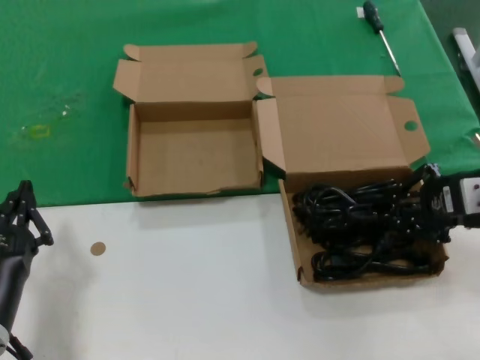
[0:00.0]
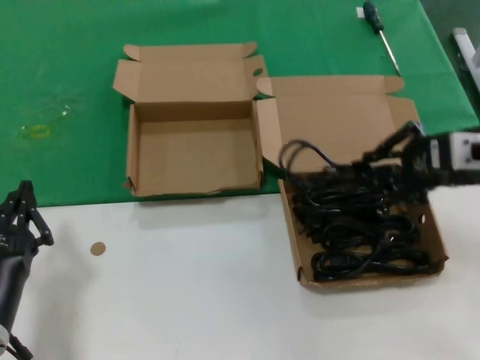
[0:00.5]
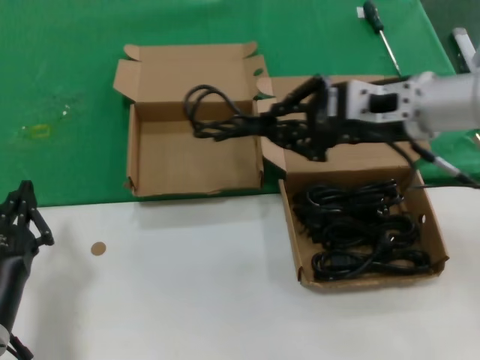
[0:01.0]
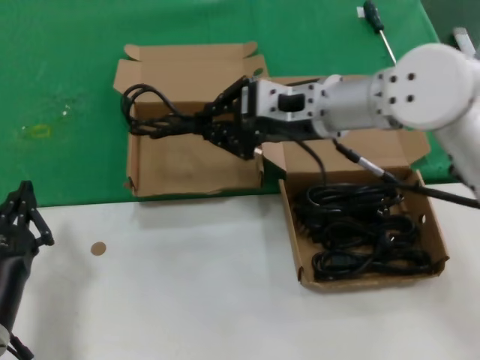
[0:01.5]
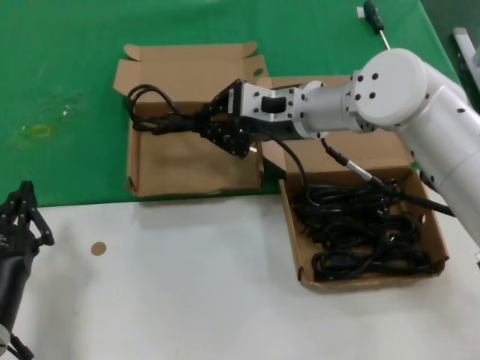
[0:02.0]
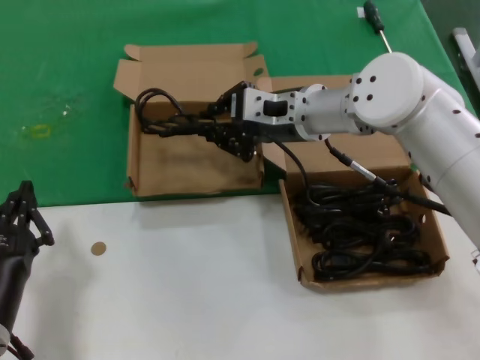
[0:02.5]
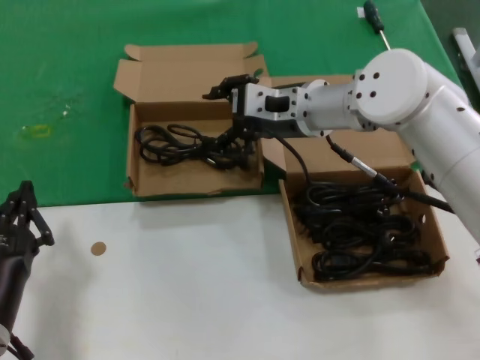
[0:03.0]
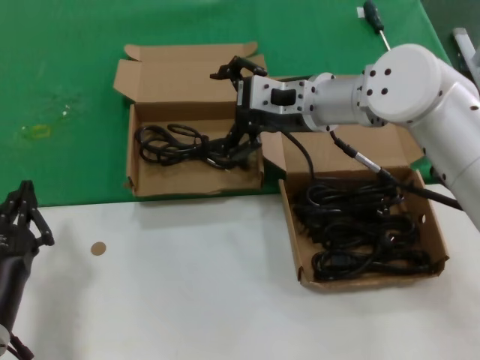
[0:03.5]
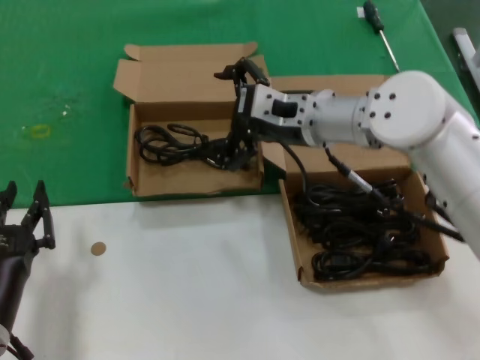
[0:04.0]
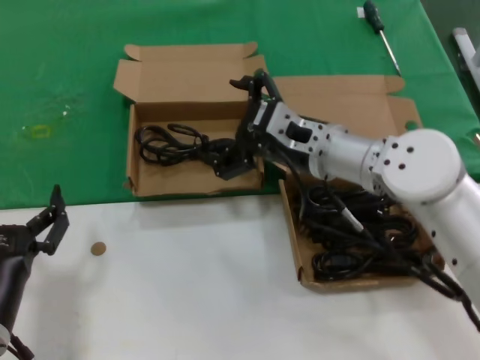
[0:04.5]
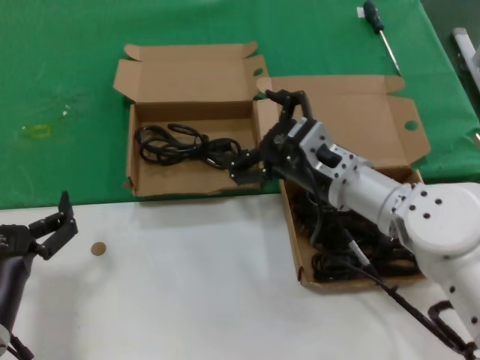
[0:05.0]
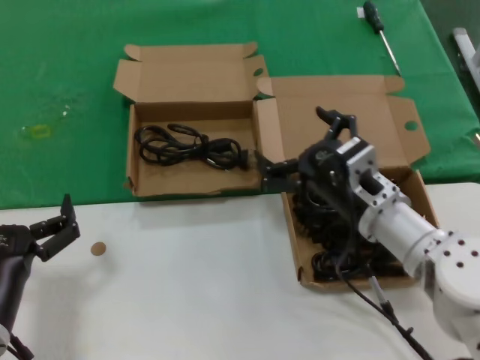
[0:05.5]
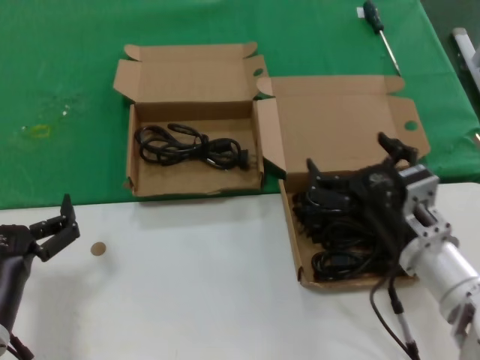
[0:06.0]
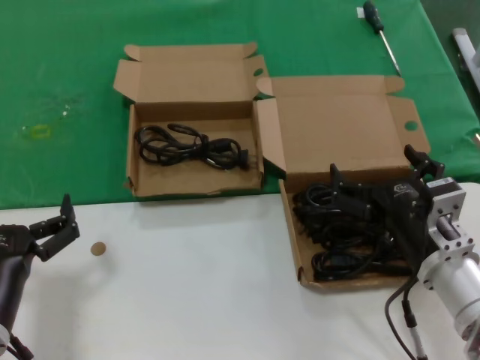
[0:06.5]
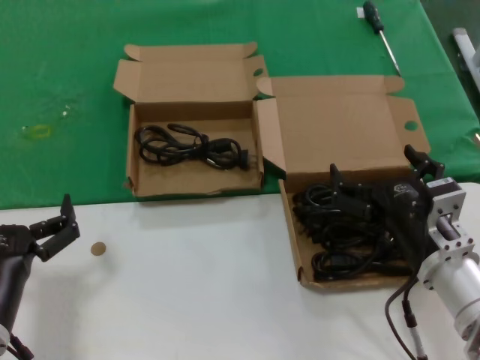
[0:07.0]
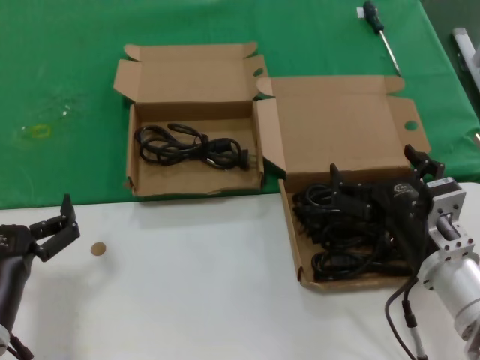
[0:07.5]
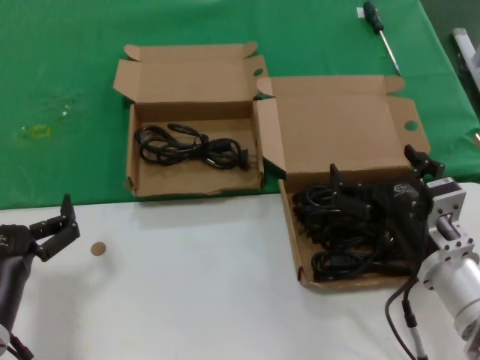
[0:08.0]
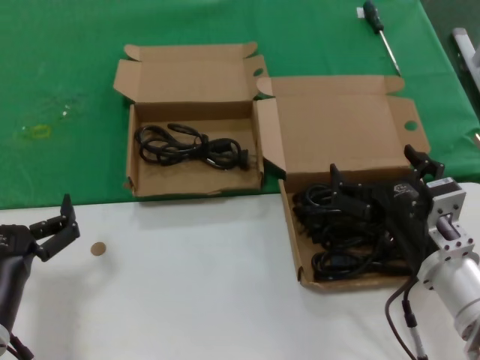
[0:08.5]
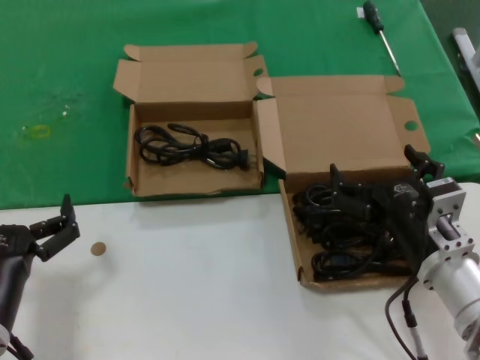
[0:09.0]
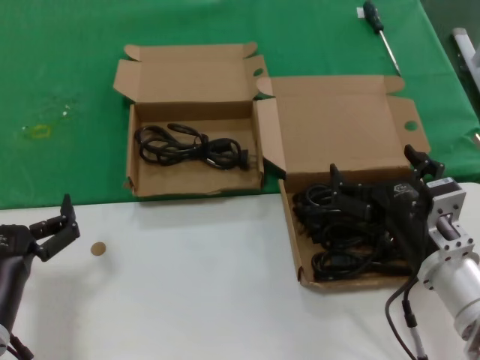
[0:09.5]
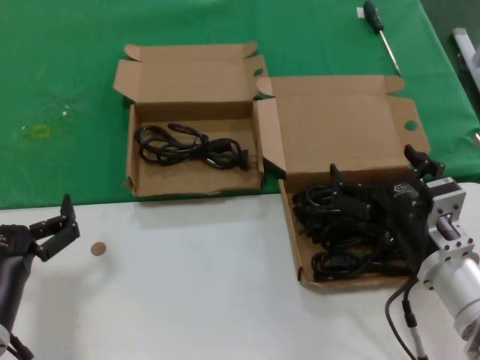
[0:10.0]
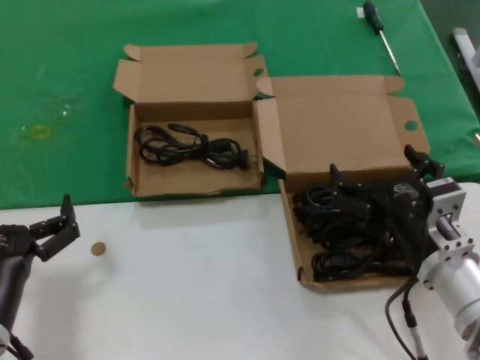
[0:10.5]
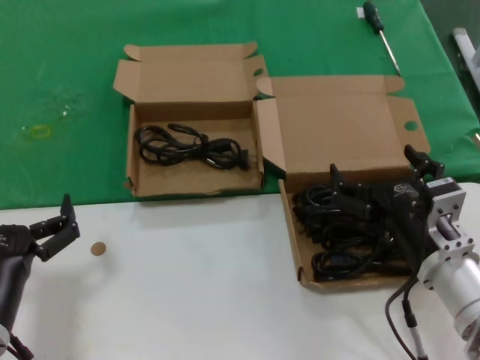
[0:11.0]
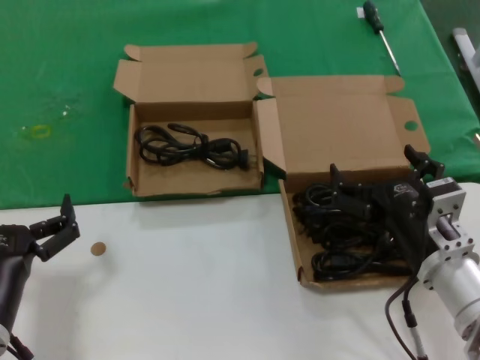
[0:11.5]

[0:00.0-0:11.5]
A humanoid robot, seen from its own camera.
Task of the whole recording: take the parts from the box containing them and put them into an empty box.
Step, 0:00.0 to 0:03.0: Place the data cable in the another box.
0:00.0 to 0:02.0: The right hand travels to the left and forward by approximately 25 cm.
0:02.0 to 0:04.0: The hands make only small movements.
0:04.0 to 0:06.0: The right hand heads backward, downward and to the right, covering some 25 cm.
0:06.0 to 0:07.5: The hands move only a little.
0:07.5 to 0:11.5: Both hands stay put.

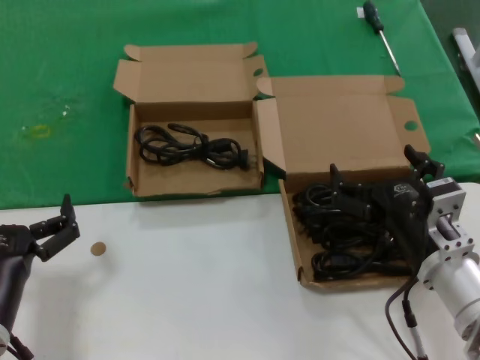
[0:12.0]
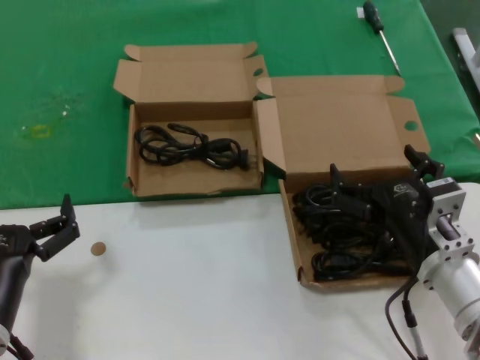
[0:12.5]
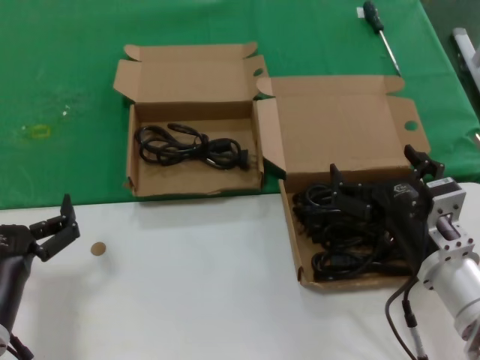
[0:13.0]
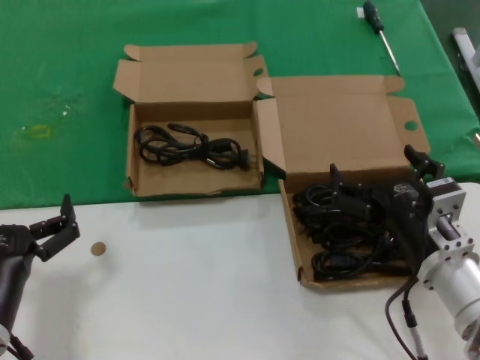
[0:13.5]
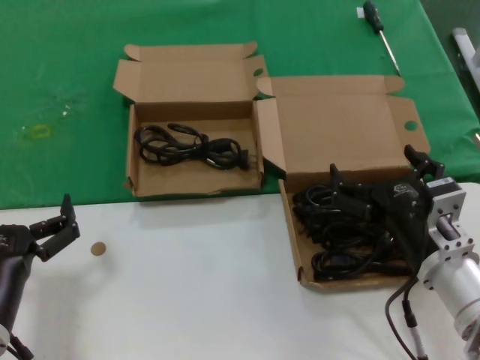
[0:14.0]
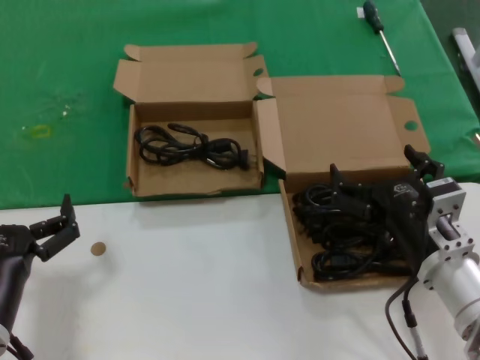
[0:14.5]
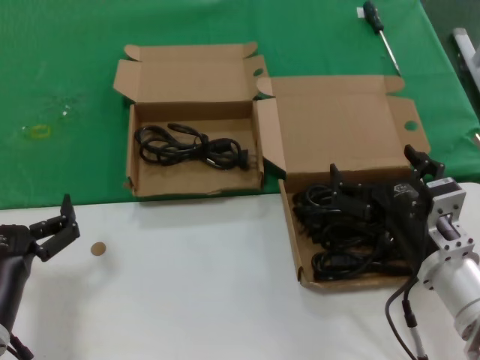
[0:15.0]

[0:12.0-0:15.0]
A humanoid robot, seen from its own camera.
Task of the whole recording: take the parts from the box containing them and put them into an empty box.
0:12.0 to 0:15.0: The two hands keep their place.
